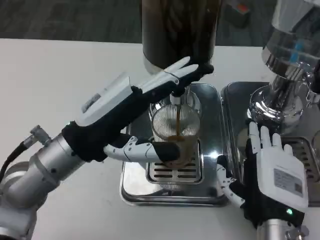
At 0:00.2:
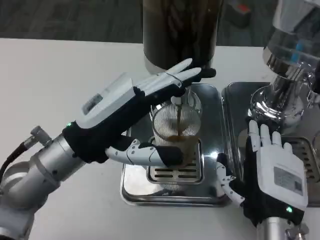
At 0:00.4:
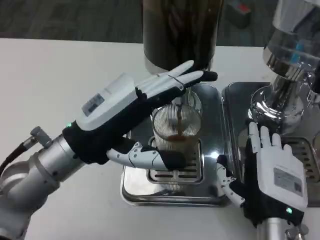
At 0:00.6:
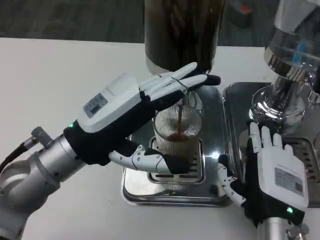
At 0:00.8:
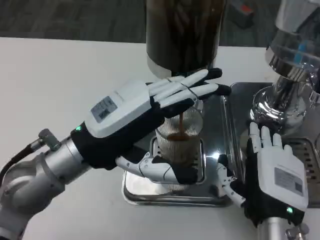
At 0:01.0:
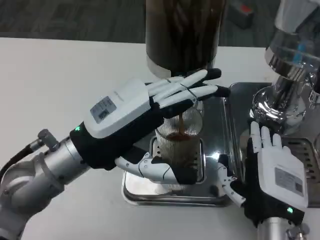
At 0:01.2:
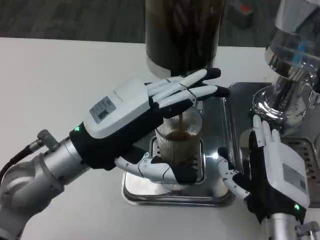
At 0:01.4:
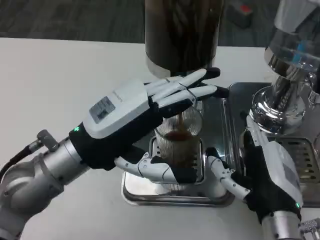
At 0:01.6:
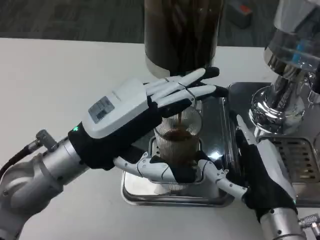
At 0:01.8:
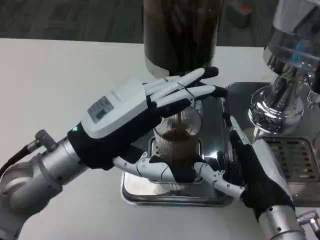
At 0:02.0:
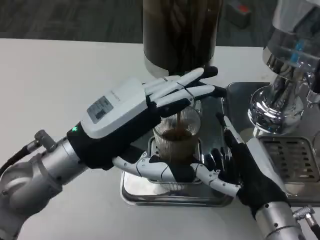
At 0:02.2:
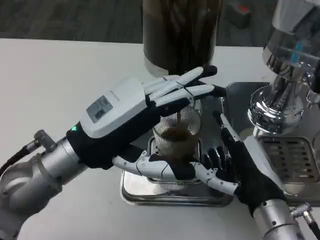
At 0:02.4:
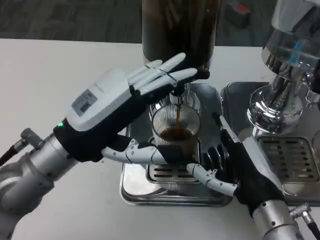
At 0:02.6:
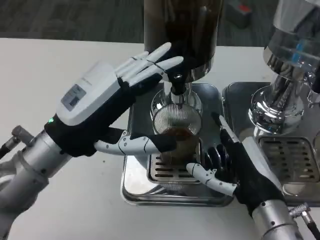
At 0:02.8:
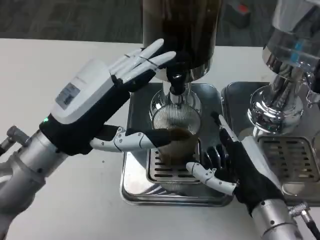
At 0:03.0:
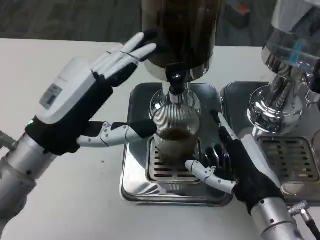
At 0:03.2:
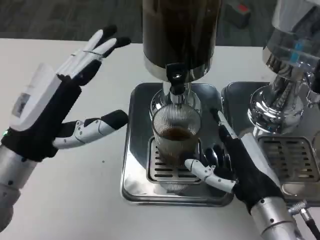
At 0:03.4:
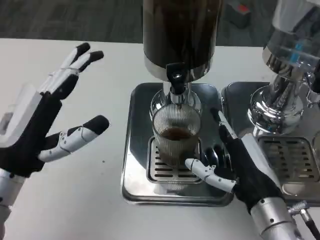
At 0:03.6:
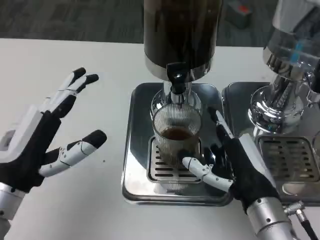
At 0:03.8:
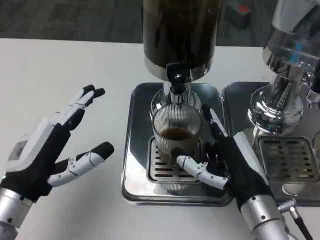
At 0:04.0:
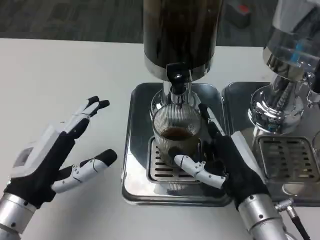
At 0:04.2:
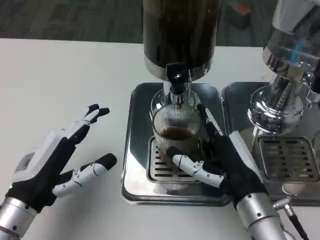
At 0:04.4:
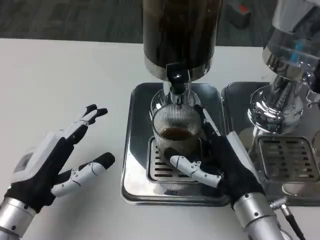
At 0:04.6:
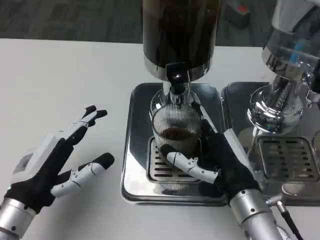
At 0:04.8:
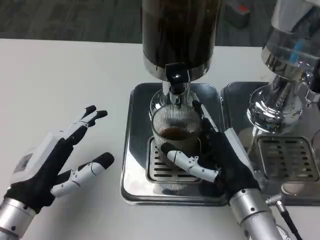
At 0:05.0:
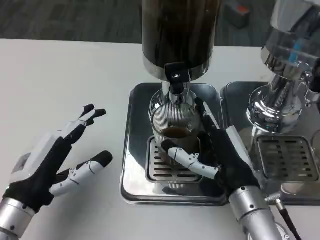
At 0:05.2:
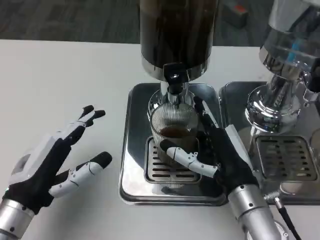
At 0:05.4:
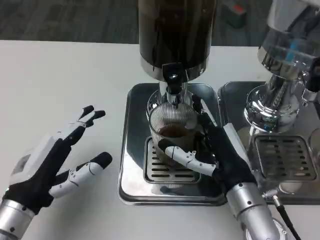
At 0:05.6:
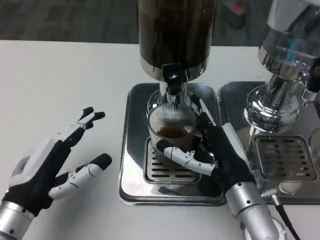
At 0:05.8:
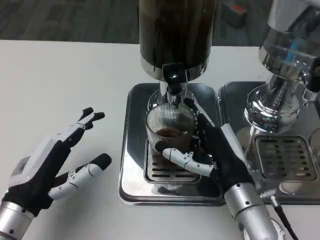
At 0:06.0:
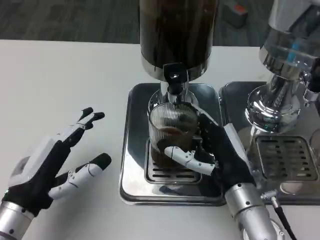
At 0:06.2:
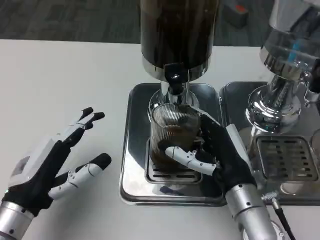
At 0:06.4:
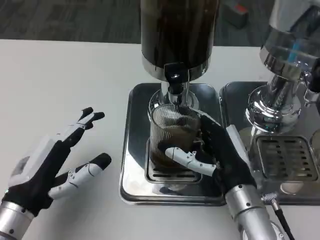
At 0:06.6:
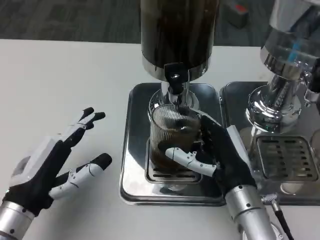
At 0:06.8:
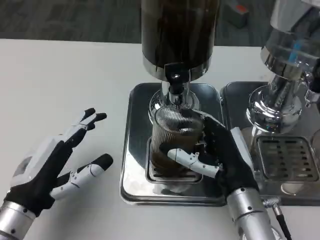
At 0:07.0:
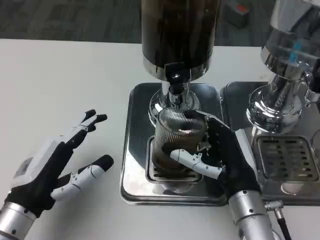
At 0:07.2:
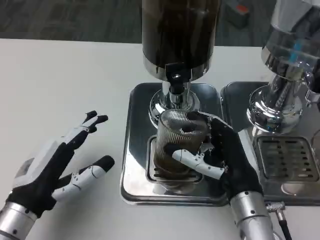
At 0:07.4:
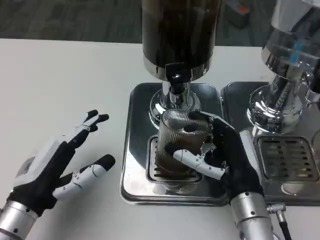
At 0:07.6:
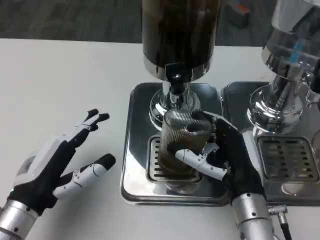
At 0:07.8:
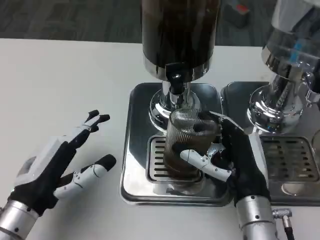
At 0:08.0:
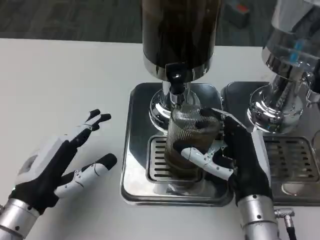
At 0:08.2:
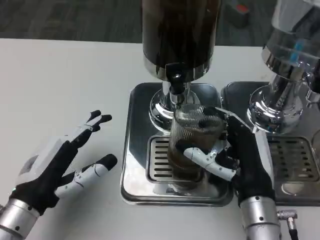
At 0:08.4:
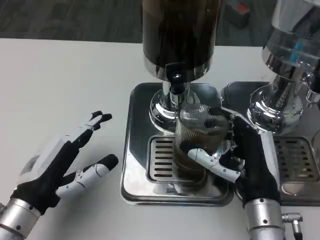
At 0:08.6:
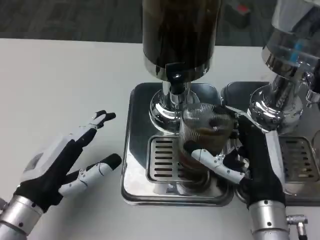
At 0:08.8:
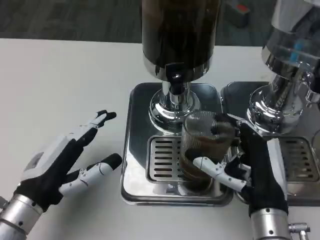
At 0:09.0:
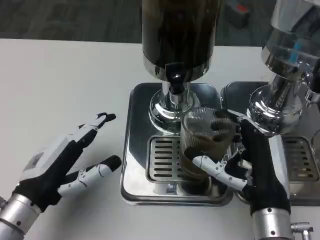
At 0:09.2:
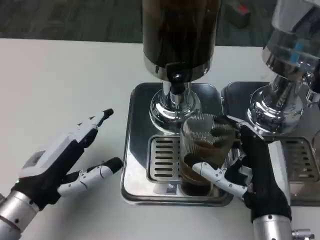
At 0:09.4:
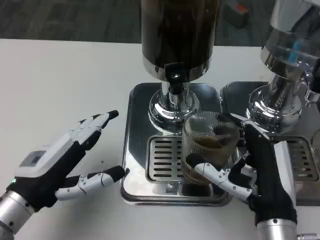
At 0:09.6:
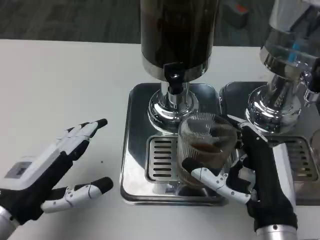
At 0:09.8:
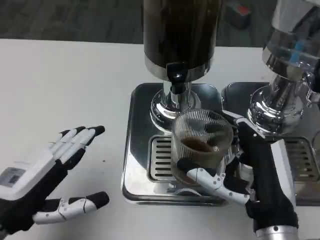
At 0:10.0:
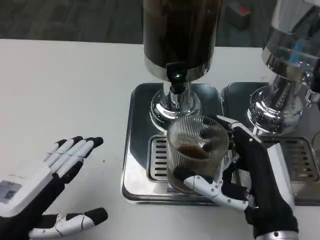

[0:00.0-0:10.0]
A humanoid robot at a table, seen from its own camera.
Task of the whole recording: Grasp the cup under the faucet to collect the drink, then remove the cup.
0:02.8 to 0:04.2: The left hand travels downward and backward by some 10 cm.
0:07.2 to 0:08.6: The hands move only a little.
0:08.6 to 0:10.0: The two hands go roughly 5 cm backward.

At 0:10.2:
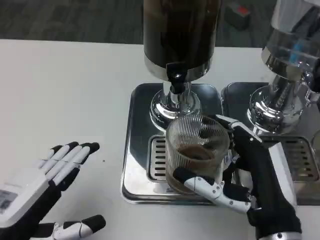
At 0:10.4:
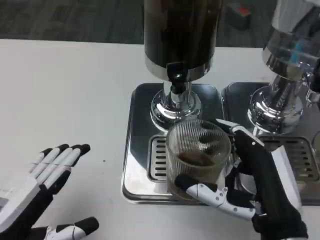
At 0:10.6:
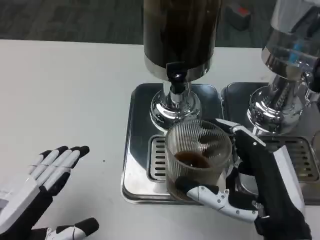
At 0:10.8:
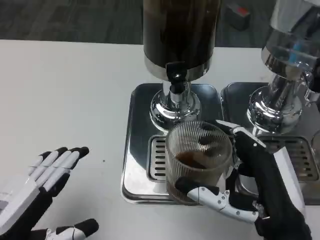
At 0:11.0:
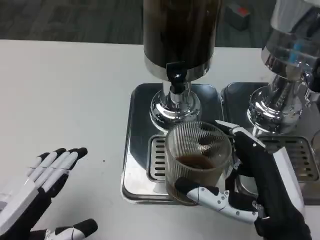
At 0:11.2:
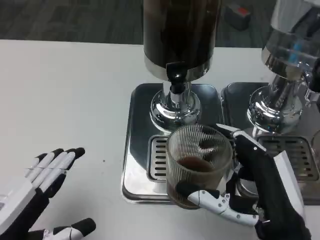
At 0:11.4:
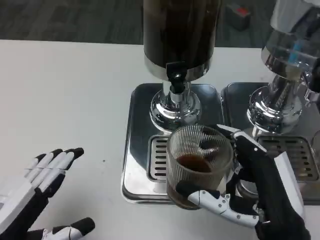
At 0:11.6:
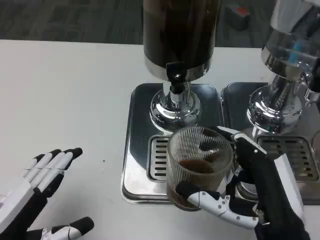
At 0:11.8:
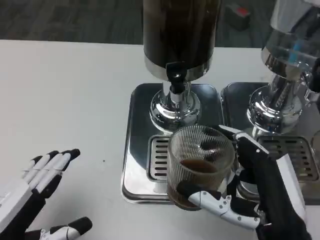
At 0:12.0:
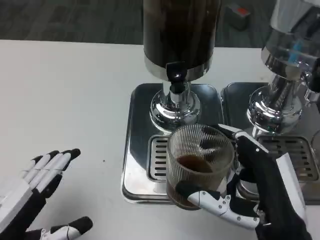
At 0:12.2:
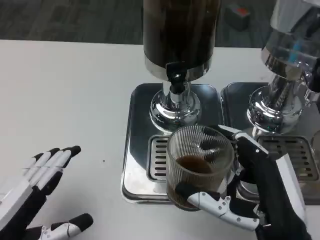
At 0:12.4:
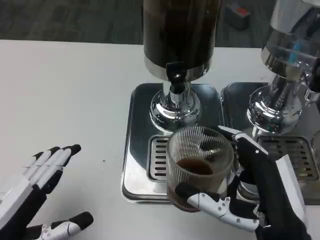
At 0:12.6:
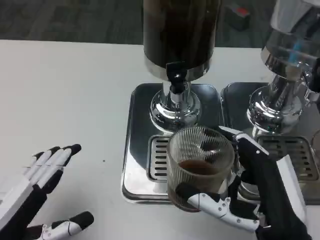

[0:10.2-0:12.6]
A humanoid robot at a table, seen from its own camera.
Task of the whole recording: Grasp the cup under the faucet to collect the drink, then remove the cup.
0:10.2 to 0:11.4: The hands stay close to where they were, moving slightly.
0:11.4 to 0:12.6: Both hands stay about where they are.
